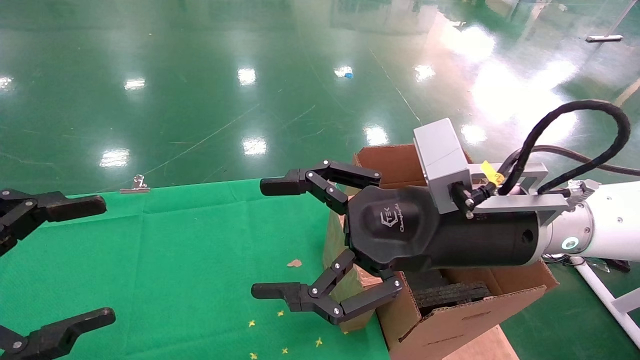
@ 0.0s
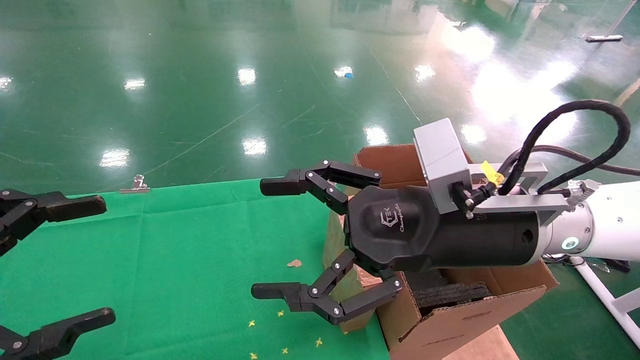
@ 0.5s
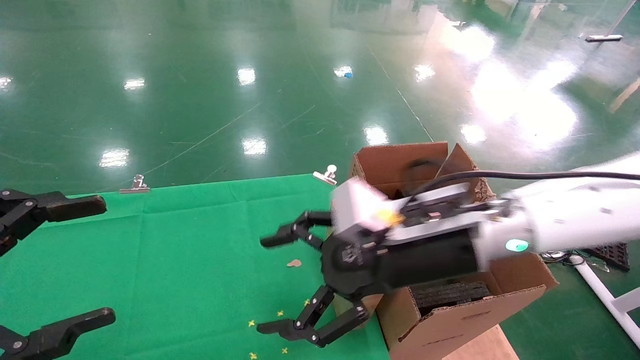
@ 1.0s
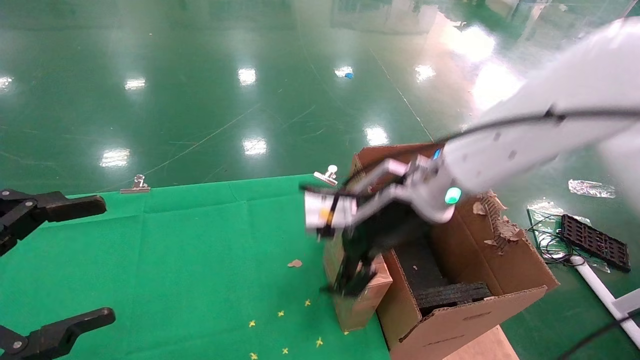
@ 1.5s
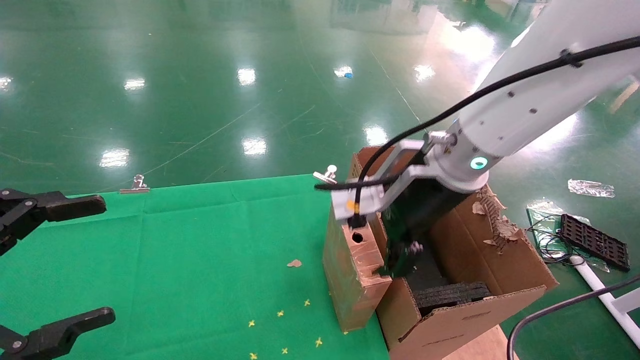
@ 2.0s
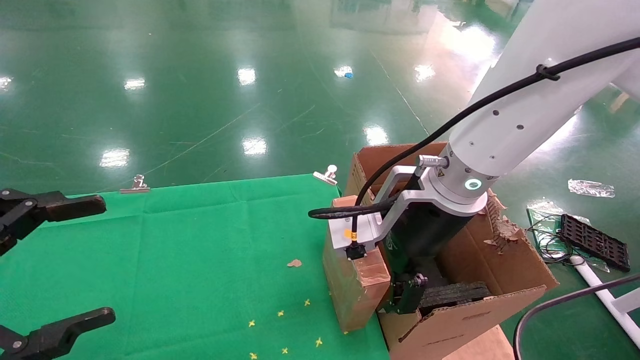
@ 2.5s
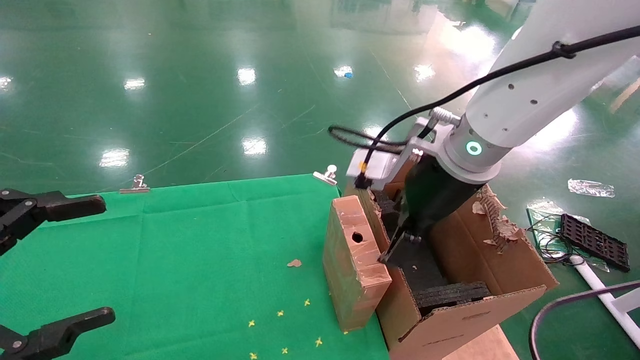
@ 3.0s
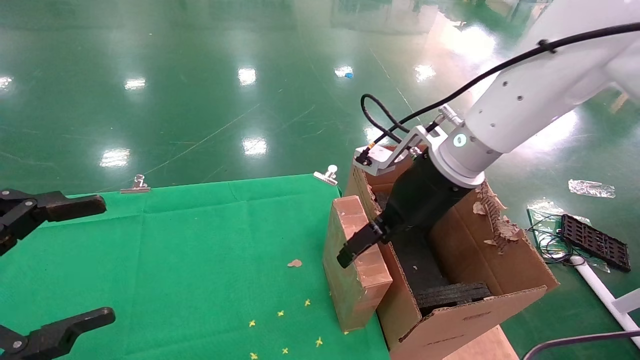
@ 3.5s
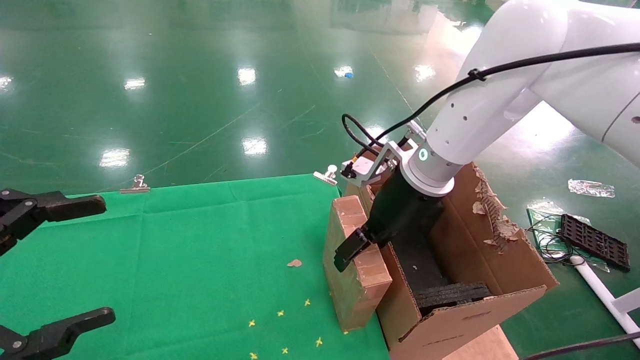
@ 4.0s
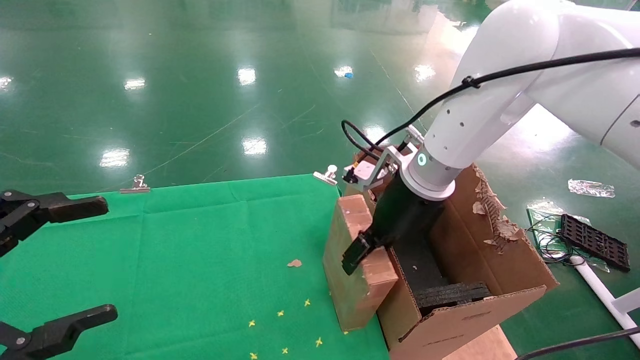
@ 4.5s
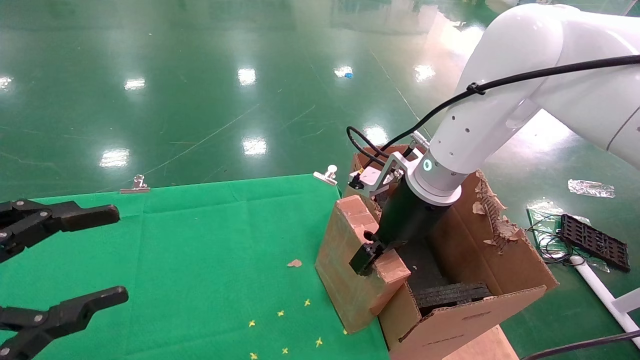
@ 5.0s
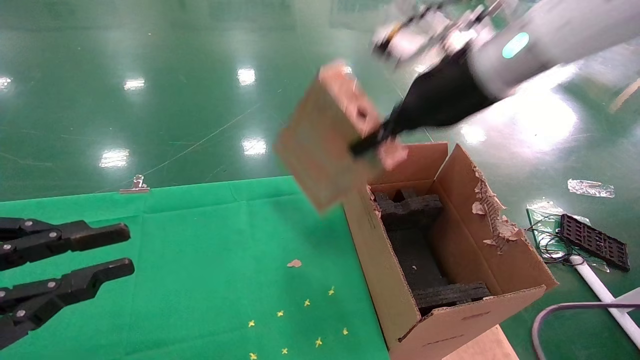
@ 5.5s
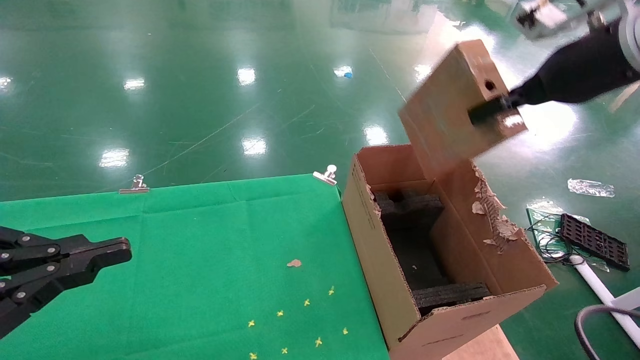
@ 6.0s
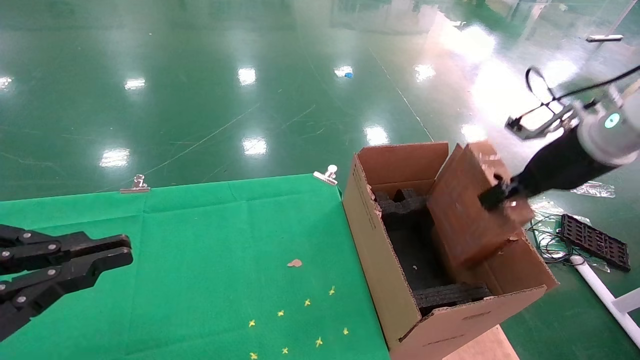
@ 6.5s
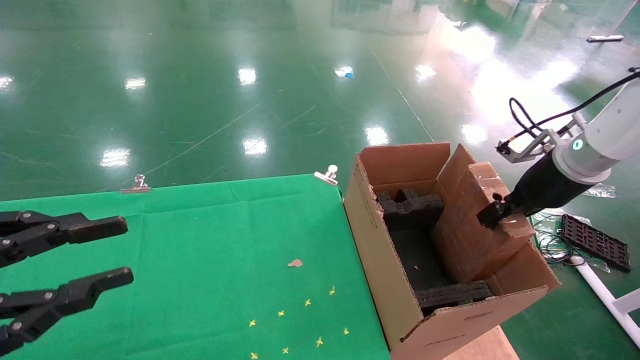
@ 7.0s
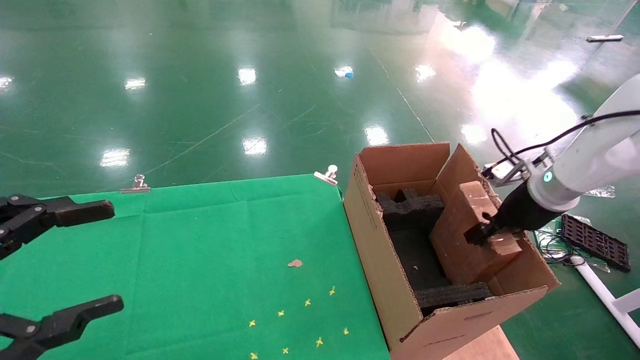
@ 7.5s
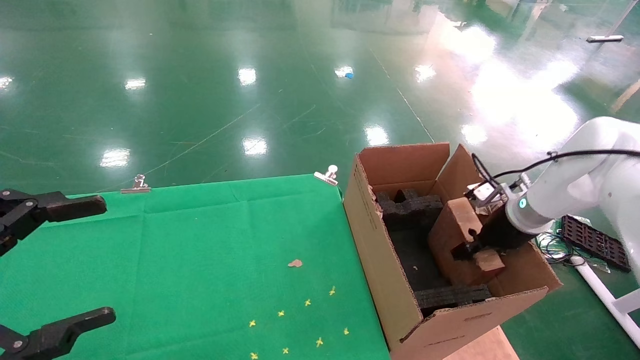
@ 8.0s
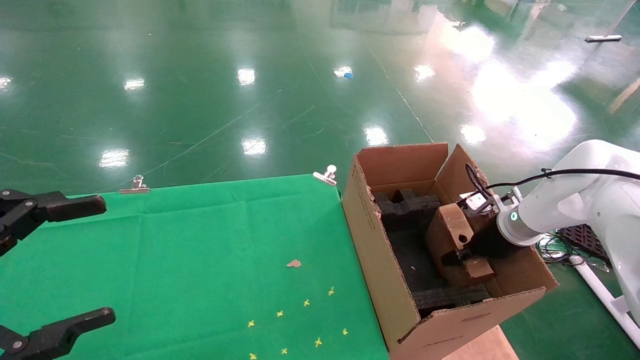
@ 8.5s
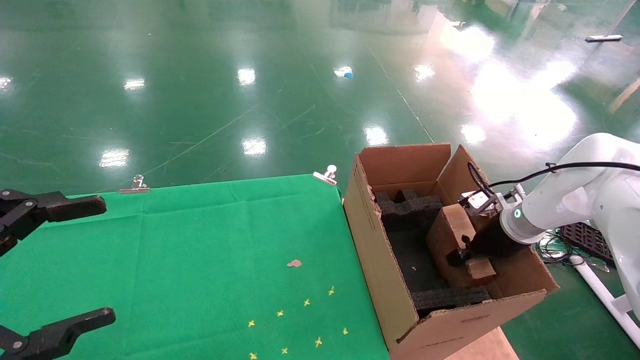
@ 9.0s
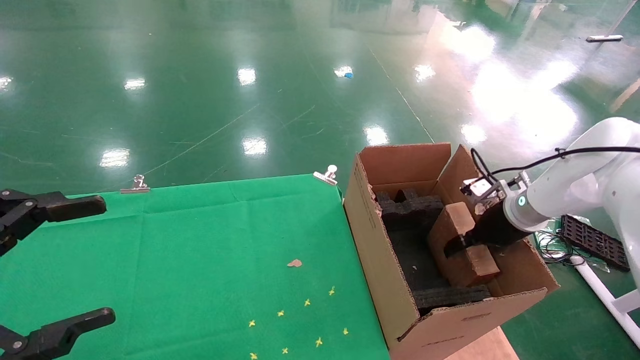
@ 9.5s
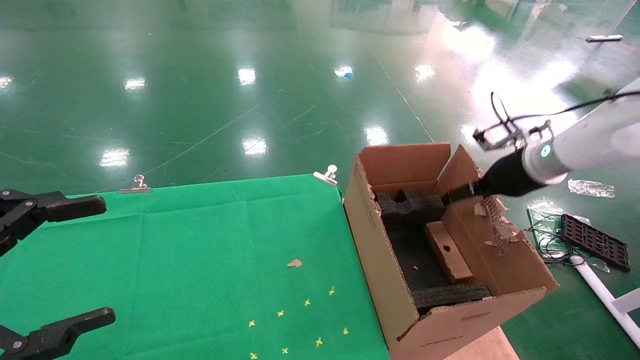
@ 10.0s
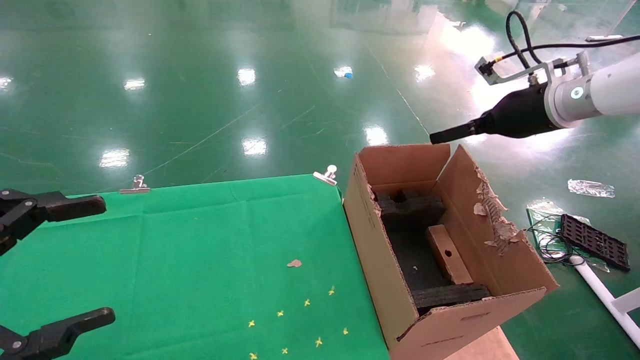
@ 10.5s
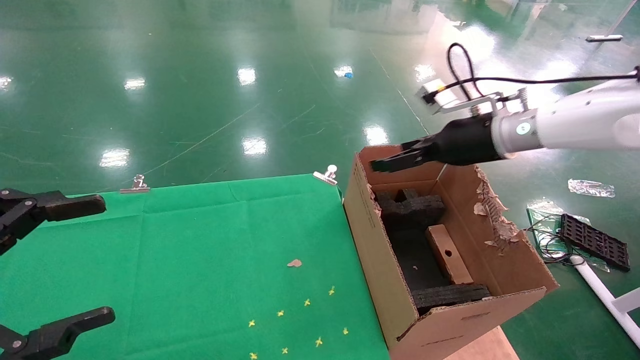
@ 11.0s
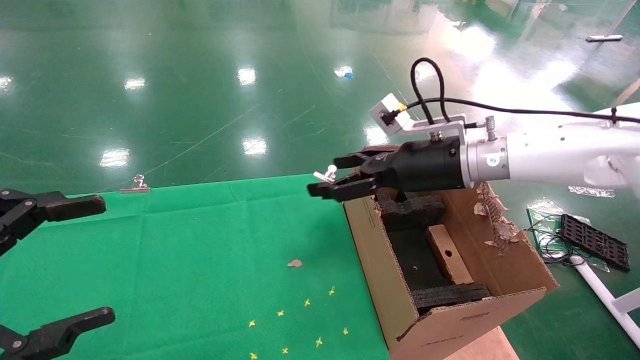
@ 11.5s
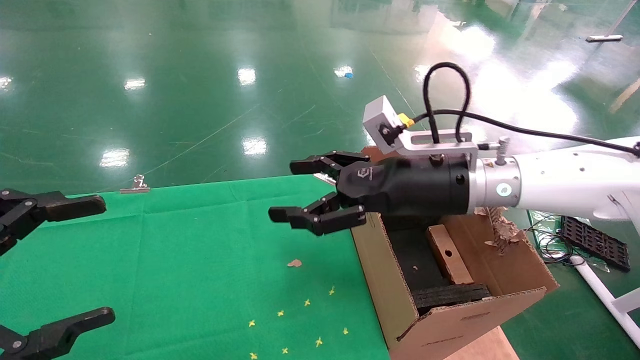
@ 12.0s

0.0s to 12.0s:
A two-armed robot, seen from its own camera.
Task of the whole recording: using a robotic arm to pick up a cardboard box and palace it the carton.
Step, 1.0s to 5.0s: Pick up the mouse and the power cord paper box.
Step, 5.5s to 10.0s: Place the mouse and the power cord paper box into the container.
0.0s to 2.0s: The right gripper moves forward, approximately 5 cm.
2.0s to 4.0s: The right gripper heads forward, covering approximately 5 cm.
4.0s to 6.0s: The right gripper heads to the right and upward, covering approximately 20 cm, and closes its fingers. The left gripper closes its fingers.
6.0s to 8.0s: The left gripper opens its fingers, while the right gripper heads downward, covering about 25 cm.
8.0s to 10.0s: The right gripper is displaced upward by about 10 cm, and opens.
10.0s to 12.0s: The right gripper goes roughly 20 cm to the left.

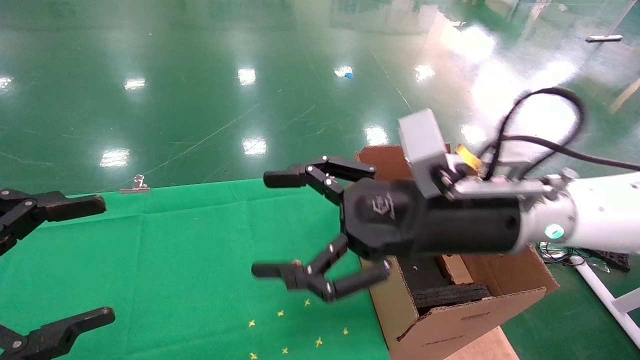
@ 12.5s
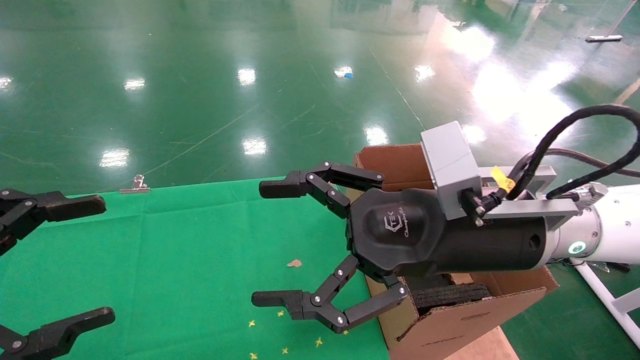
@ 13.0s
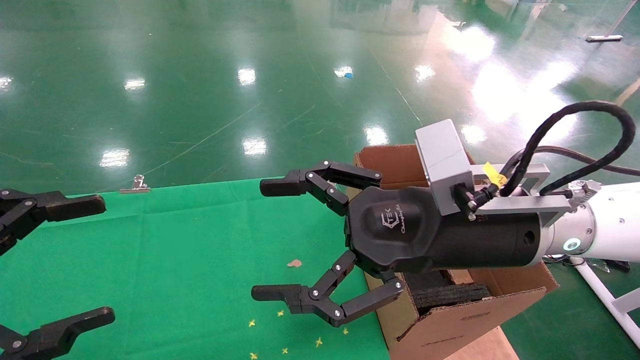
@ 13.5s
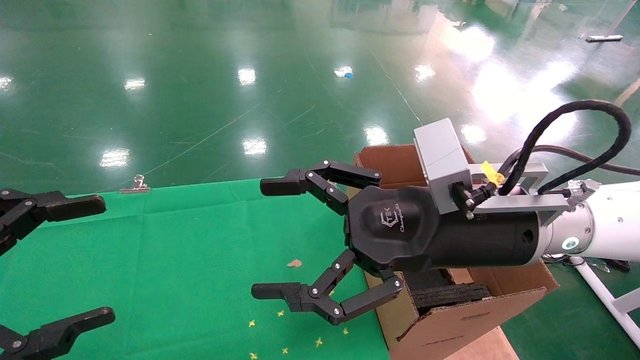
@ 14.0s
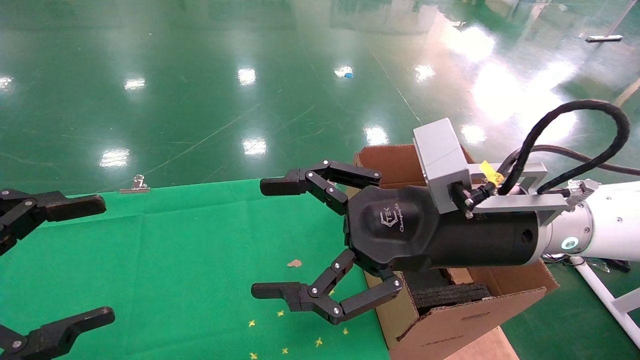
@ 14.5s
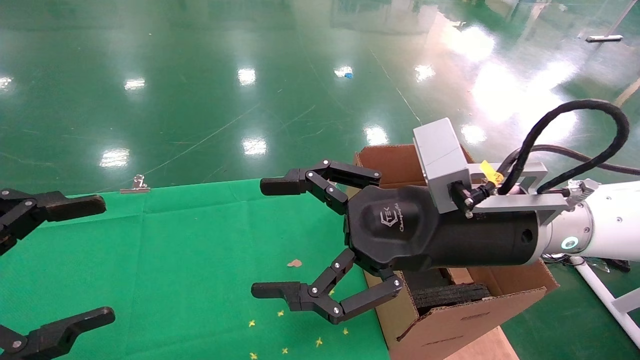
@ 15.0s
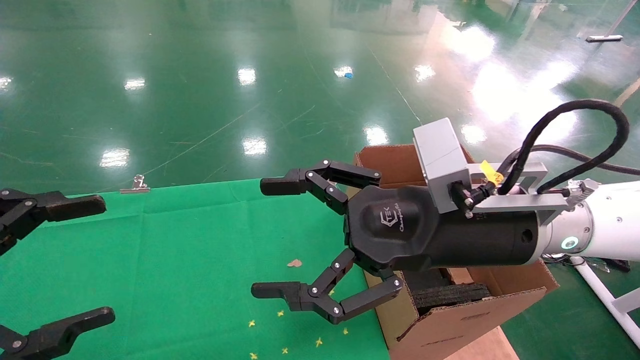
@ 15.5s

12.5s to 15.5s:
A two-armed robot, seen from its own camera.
Task of the whole recording: using a robotic arm to pick up a cardboard box and palace it the carton.
12.5s to 14.0s: The grippers make only small movements.
14.0s to 15.5s: Both grippers stay about where they are.
